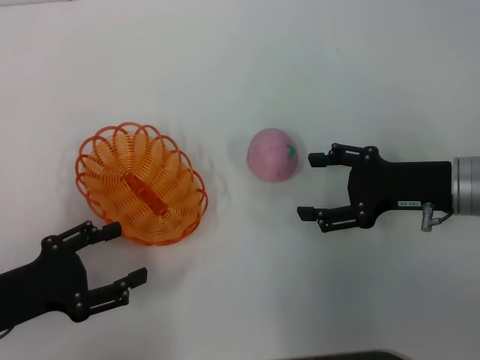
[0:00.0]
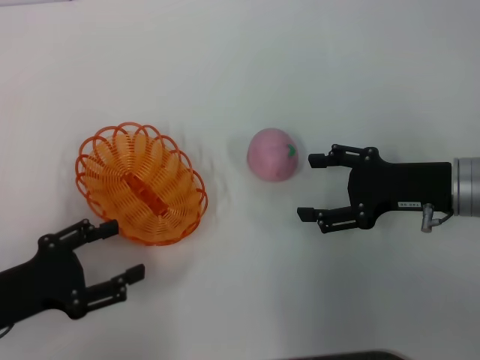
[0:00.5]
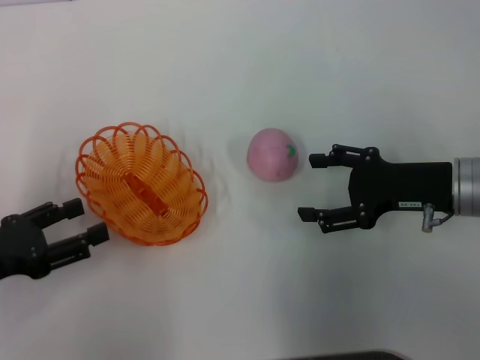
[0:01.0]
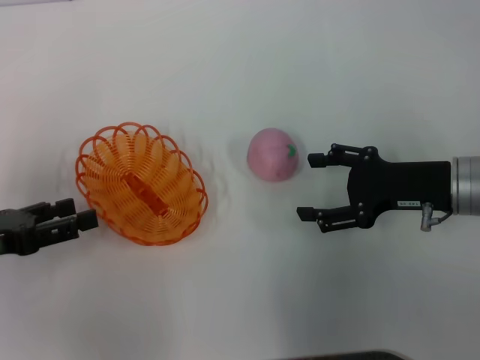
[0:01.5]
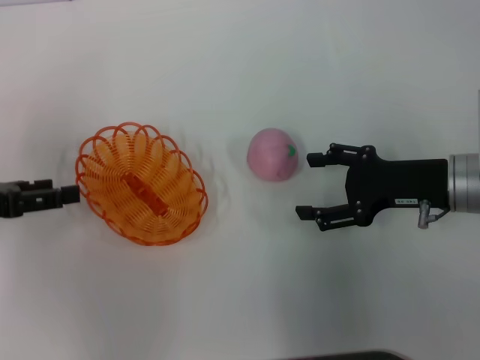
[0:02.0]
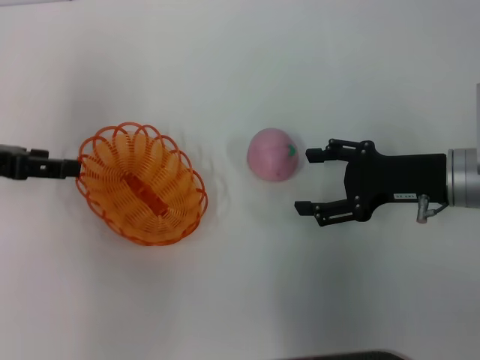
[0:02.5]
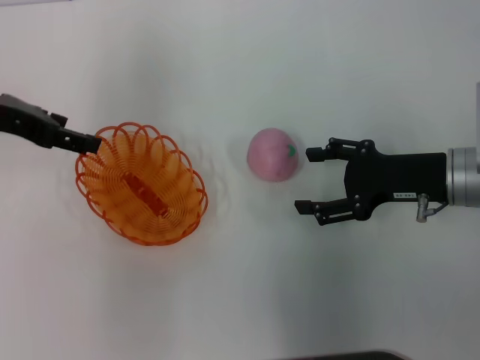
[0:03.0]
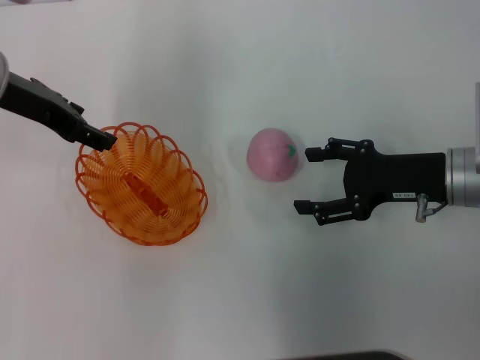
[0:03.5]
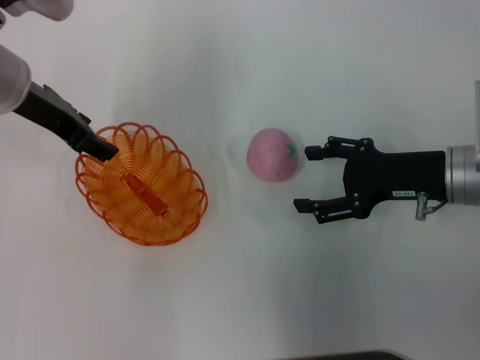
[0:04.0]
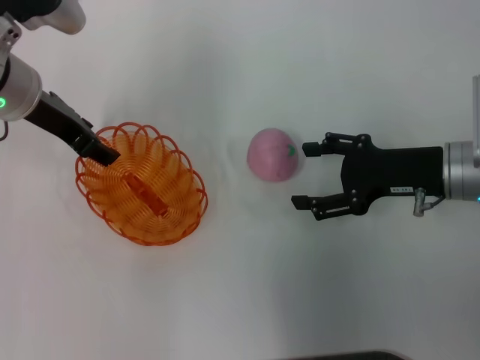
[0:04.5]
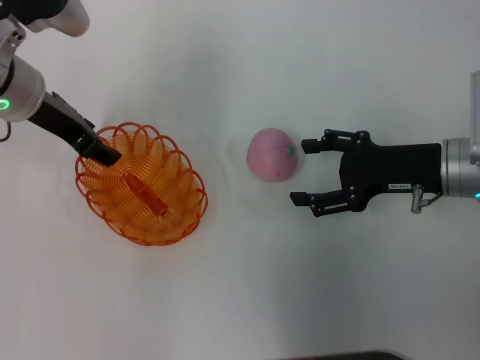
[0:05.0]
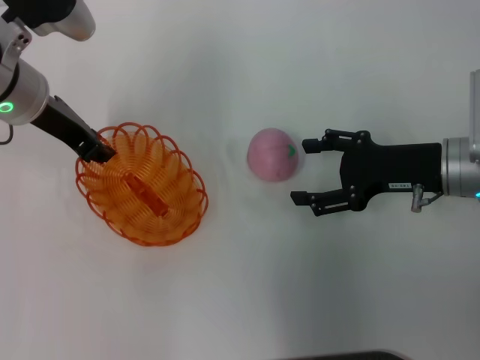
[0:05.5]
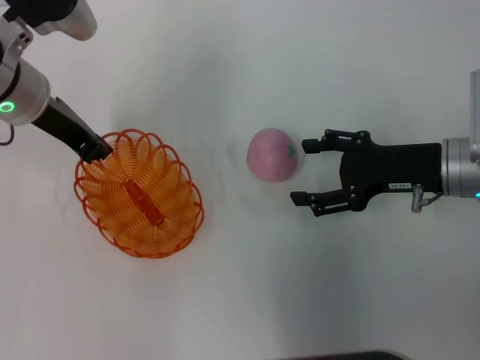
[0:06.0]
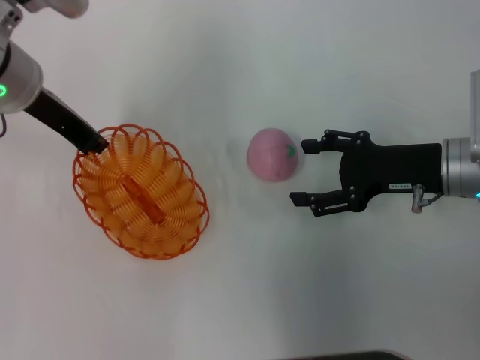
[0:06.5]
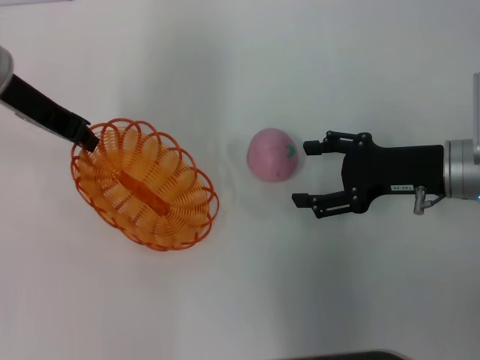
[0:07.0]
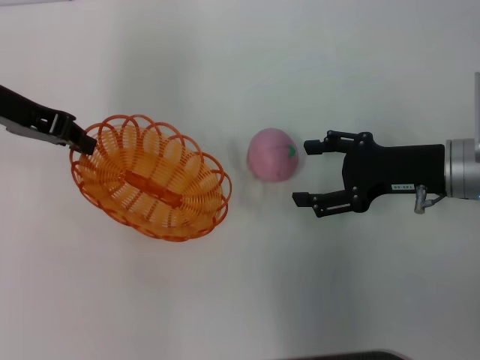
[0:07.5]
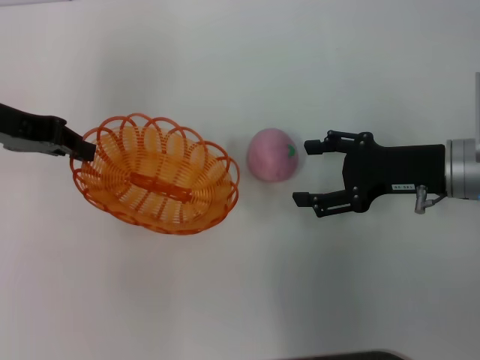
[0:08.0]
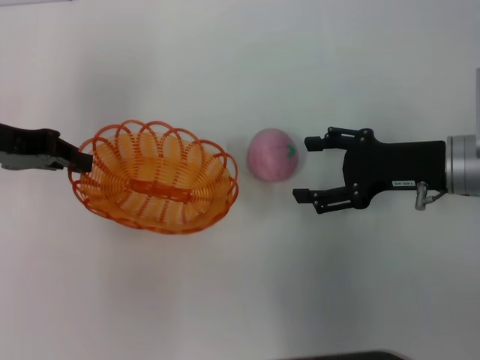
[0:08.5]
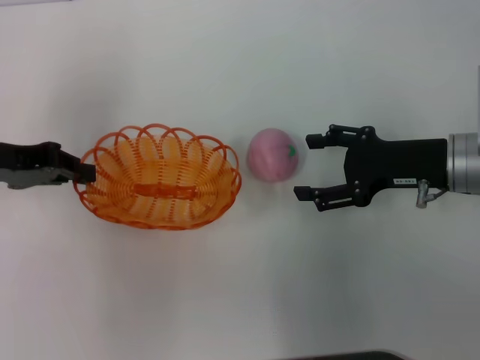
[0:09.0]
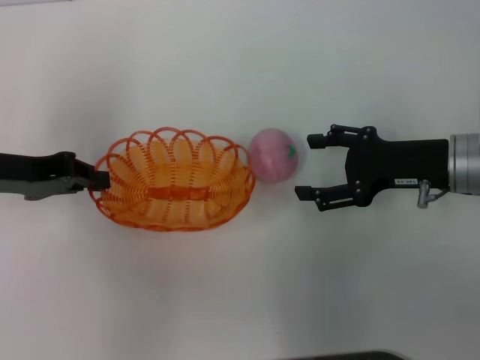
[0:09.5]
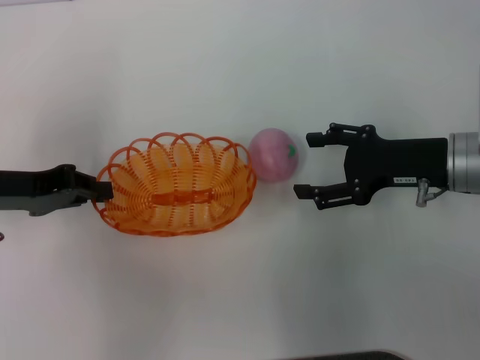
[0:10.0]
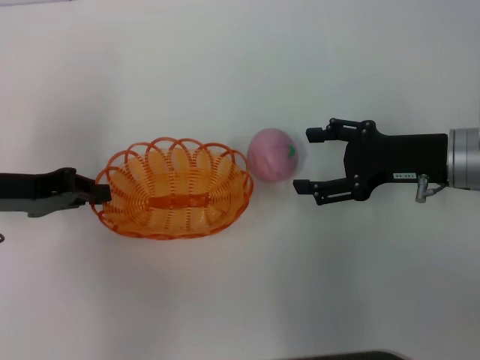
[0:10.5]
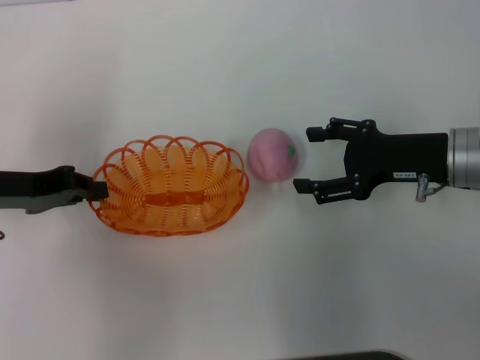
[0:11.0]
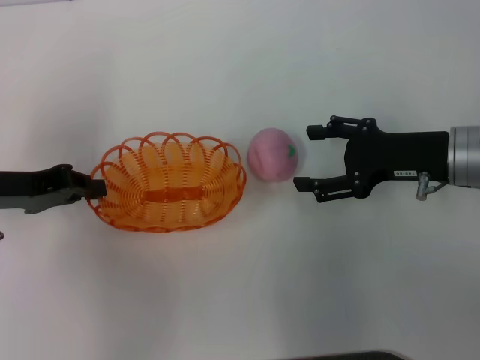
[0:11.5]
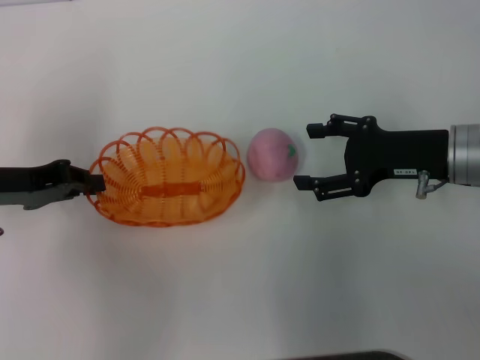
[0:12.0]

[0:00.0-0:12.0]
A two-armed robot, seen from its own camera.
Step, 0:00.0 to 0:07.0: Pick up the basket with the left gripper.
0:00.0 to 0:02.0: The left gripper is displaced forward and upward by approximately 10 cm.
0:02.0 to 0:04.0: The left gripper goes some 20 cm to the right, forward and upward.
0:04.0 to 0:06.0: The left gripper closes its fingers.
0:06.0 to 0:08.0: The left gripper is displaced to the left by some 10 cm.
0:08.0 to 0:10.0: The left gripper shifts approximately 10 cm downward and backward.
0:10.0 to 0:12.0: The two grippers keep their place.

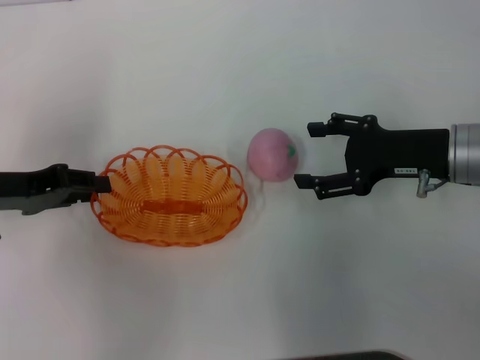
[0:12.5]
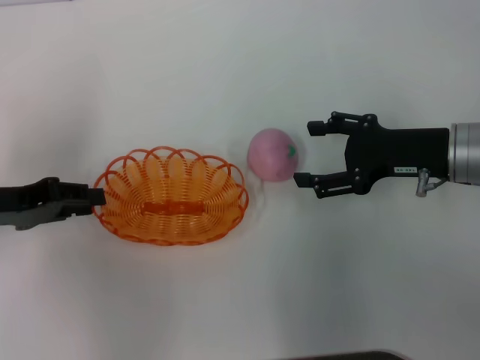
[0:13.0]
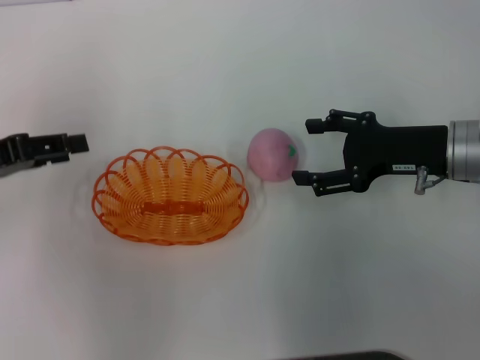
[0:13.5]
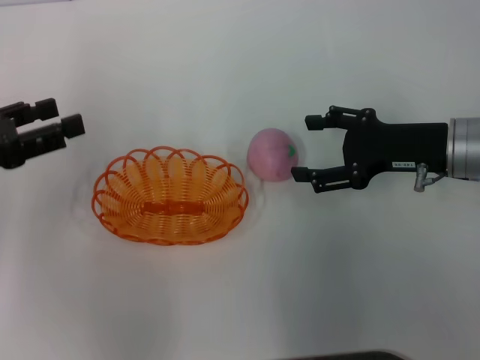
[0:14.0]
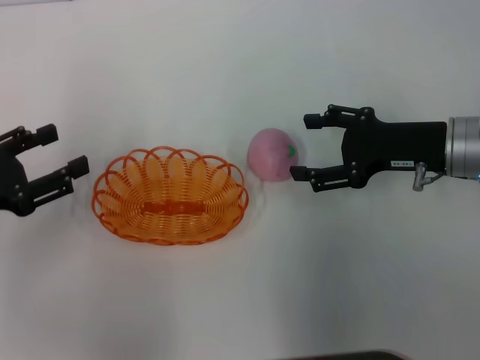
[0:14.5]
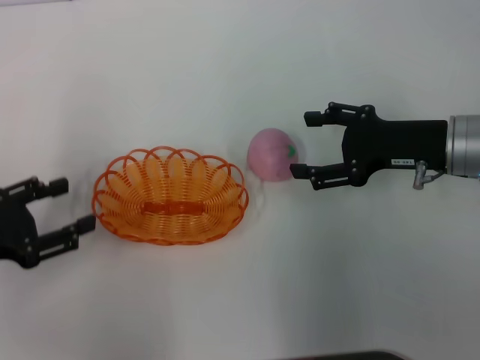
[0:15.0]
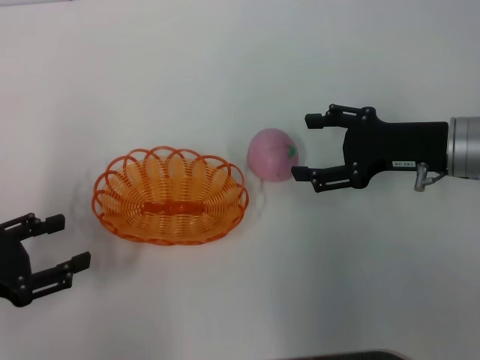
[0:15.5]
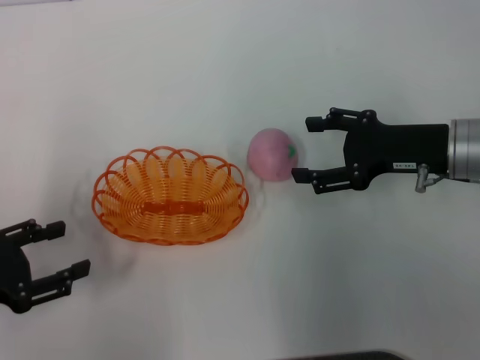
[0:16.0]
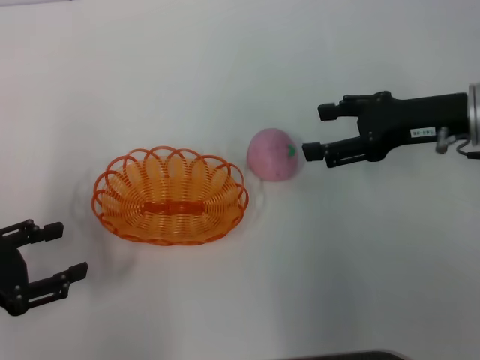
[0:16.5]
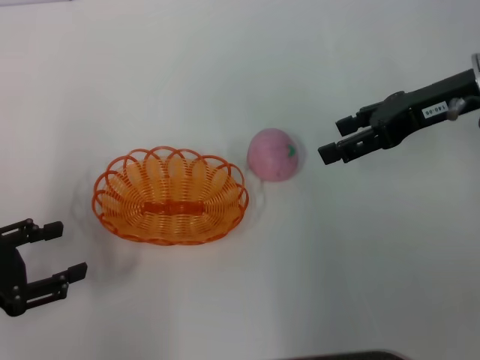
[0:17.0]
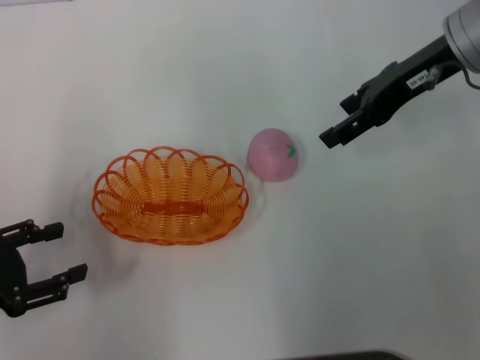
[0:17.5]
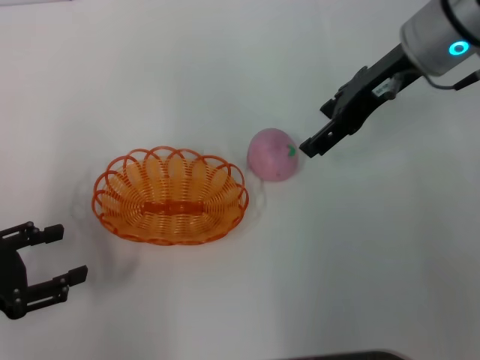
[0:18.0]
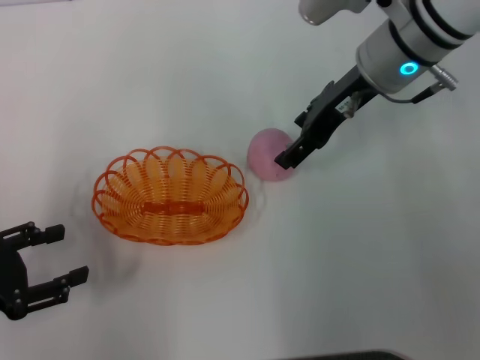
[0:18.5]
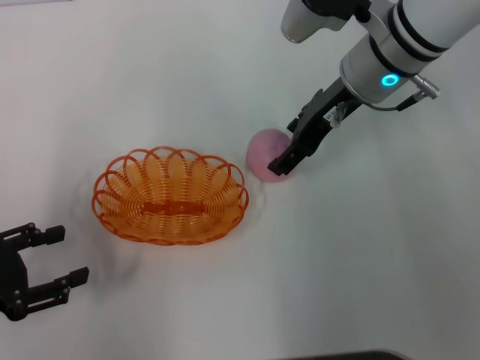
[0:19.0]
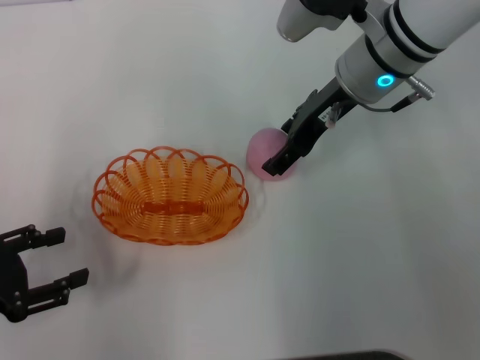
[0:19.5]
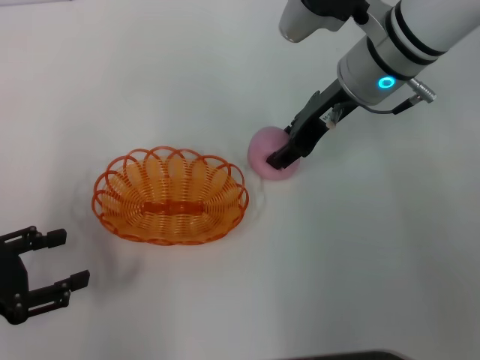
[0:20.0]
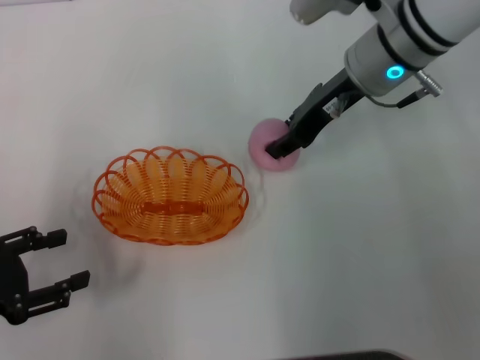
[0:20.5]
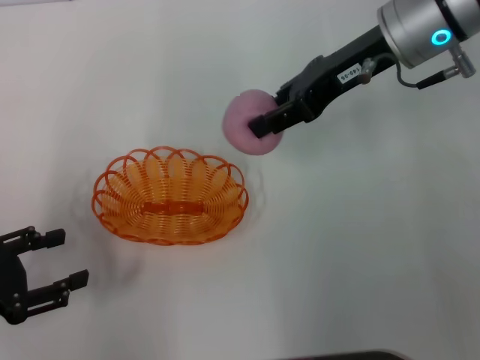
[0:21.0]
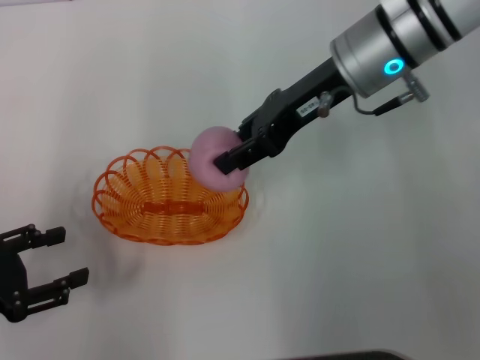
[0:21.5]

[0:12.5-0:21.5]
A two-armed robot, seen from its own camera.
Step, 0:14.0 to 0:21.0: Pick up the peach with the right gripper.
0:12.5 to 0:14.5: The left gripper moves backward, approximately 5 cm, and opens.
0:14.5 to 0:17.0: The left gripper changes place by about 5 cm. Meanwhile the right gripper moves upward, some 10 cm.
0:17.0 to 0:19.5: The right gripper heads to the left, covering approximately 10 cm.
0:19.5 to 0:21.5: The right gripper closes.

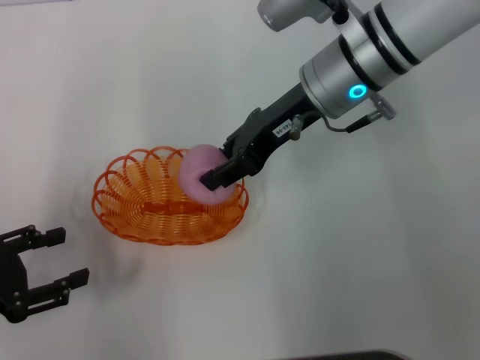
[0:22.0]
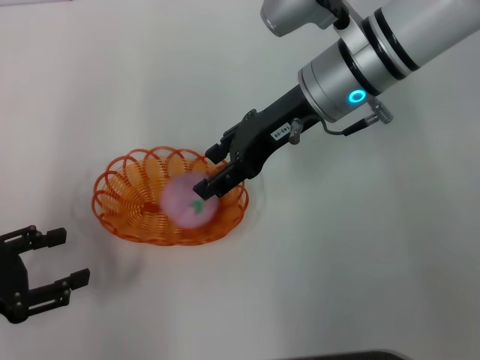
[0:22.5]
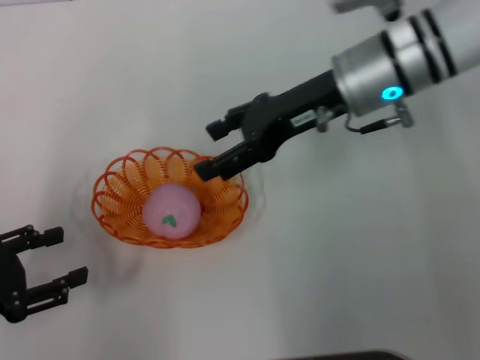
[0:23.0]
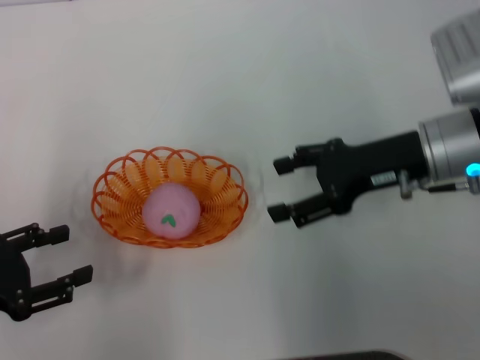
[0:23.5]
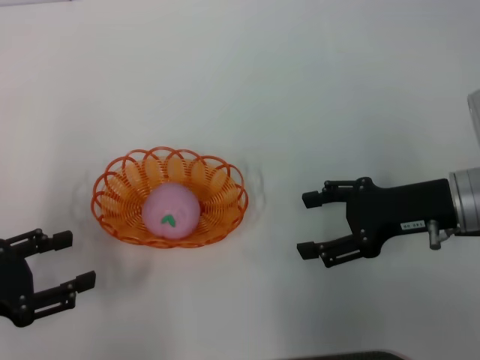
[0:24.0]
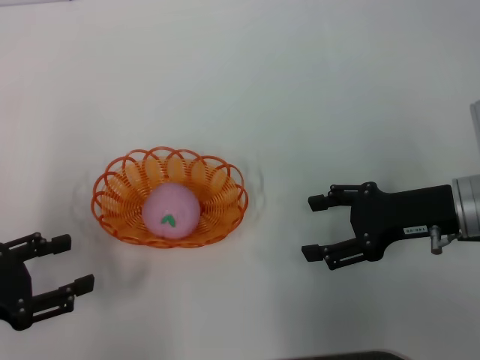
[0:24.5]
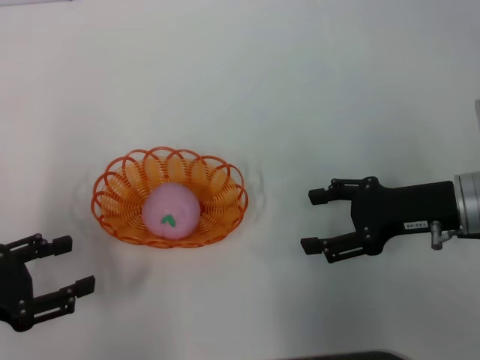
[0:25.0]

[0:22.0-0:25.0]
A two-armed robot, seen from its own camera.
Step, 0:22.0 to 0:23.5: Place the peach into the basket with the right gripper.
0:22.0 to 0:23.5: The right gripper shifts approximately 15 cm to the right, backward and downward, and opens up.
0:23.5 to 0:25.0: The right gripper shifts by roughly 5 cm.

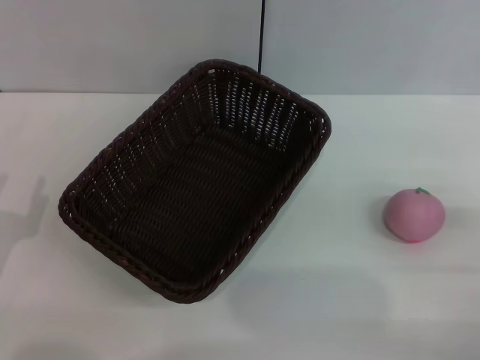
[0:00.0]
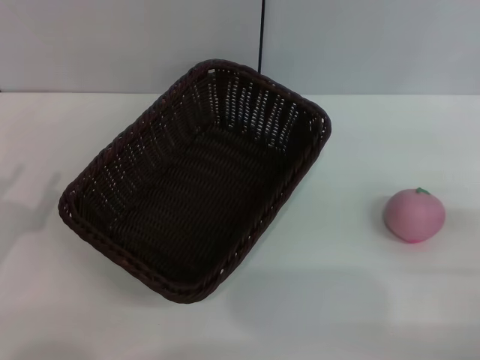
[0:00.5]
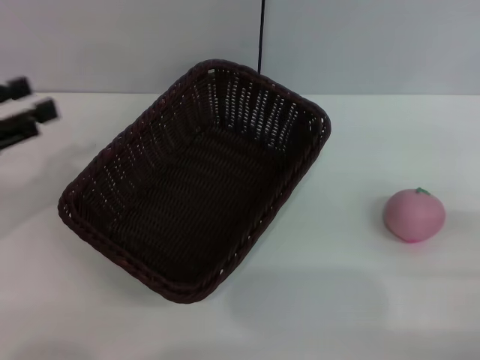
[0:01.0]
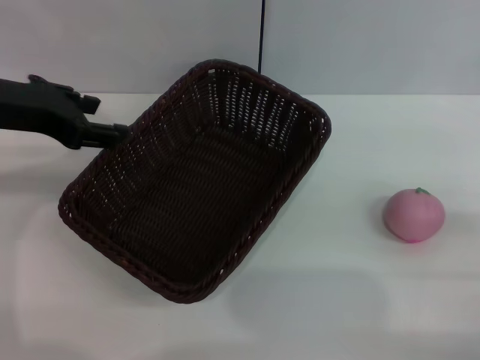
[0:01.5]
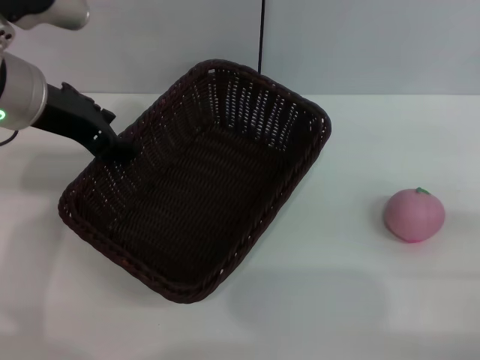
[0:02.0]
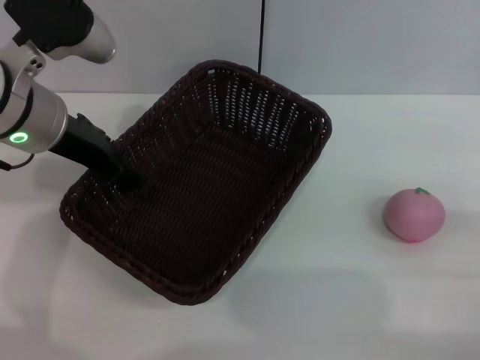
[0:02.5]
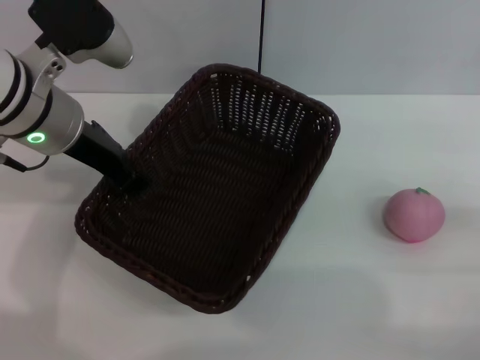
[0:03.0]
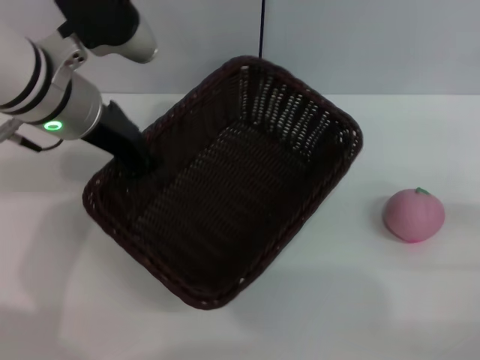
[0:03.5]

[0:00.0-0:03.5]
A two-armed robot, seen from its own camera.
0:00.0 to 0:02.0: The left gripper goes about 25 cm upward, forward and to the right.
0:02.0 to 0:03.5: The left gripper closes its fingers.
